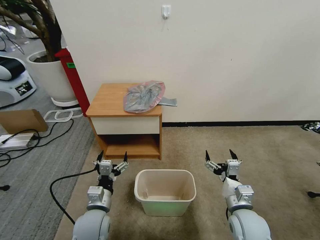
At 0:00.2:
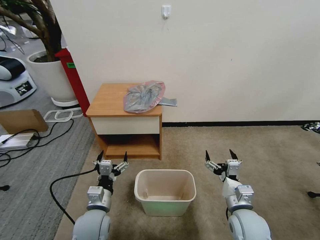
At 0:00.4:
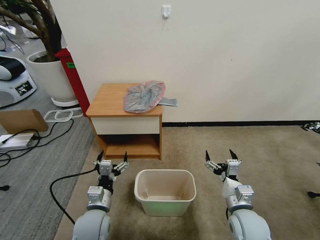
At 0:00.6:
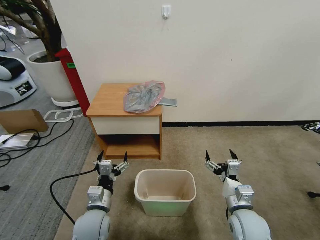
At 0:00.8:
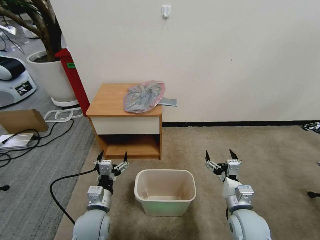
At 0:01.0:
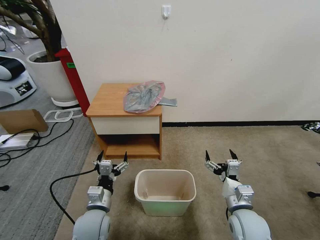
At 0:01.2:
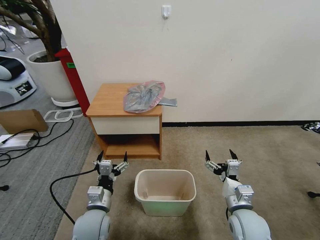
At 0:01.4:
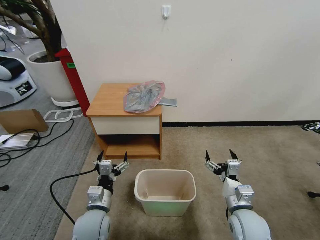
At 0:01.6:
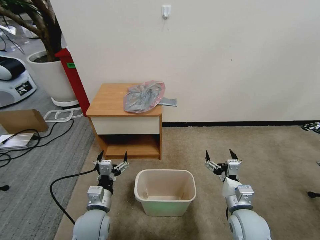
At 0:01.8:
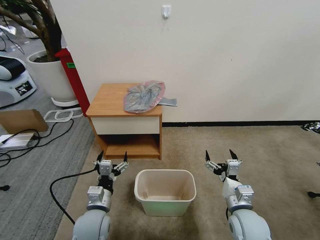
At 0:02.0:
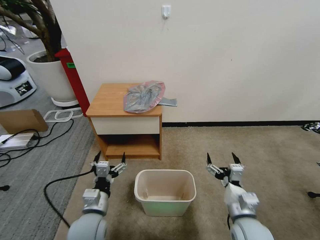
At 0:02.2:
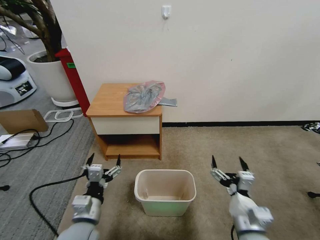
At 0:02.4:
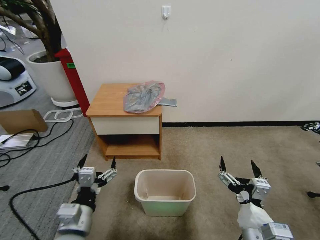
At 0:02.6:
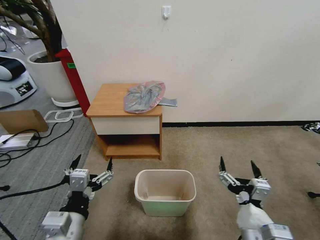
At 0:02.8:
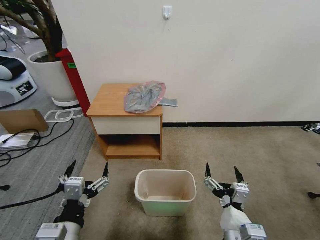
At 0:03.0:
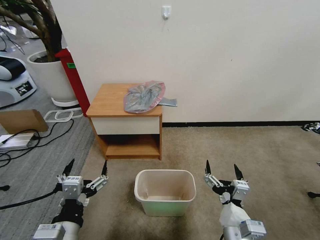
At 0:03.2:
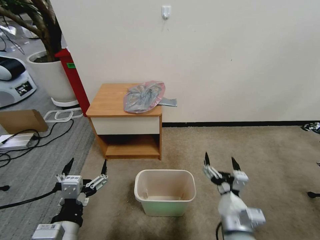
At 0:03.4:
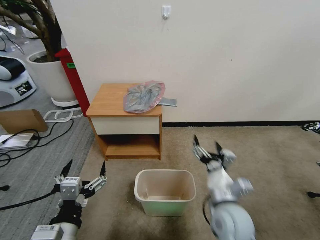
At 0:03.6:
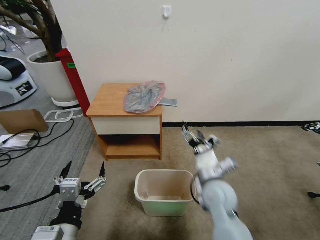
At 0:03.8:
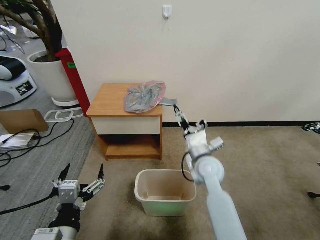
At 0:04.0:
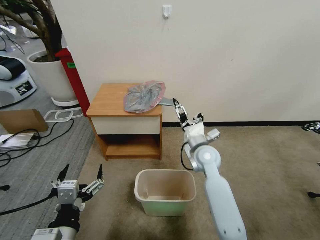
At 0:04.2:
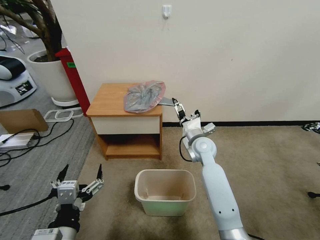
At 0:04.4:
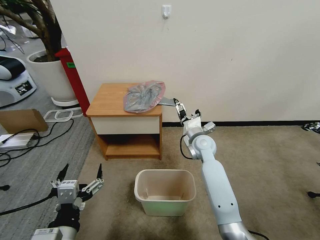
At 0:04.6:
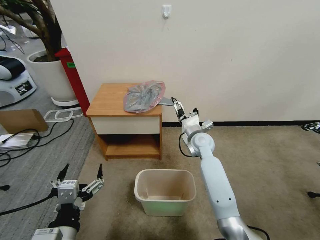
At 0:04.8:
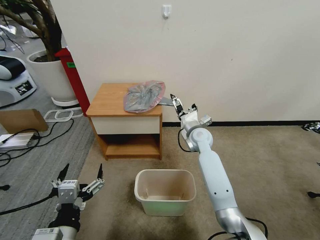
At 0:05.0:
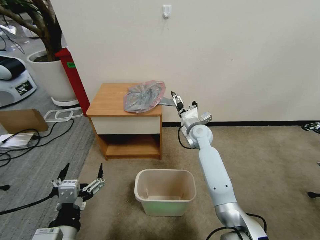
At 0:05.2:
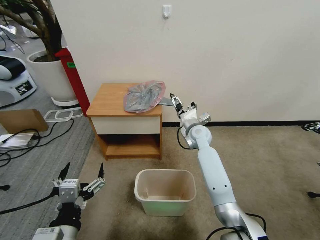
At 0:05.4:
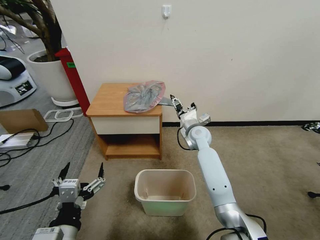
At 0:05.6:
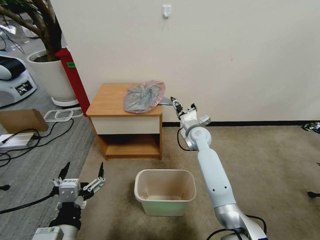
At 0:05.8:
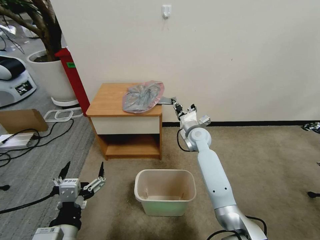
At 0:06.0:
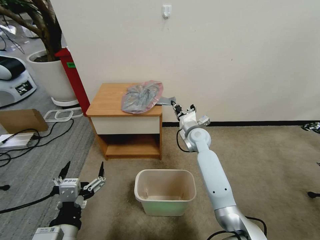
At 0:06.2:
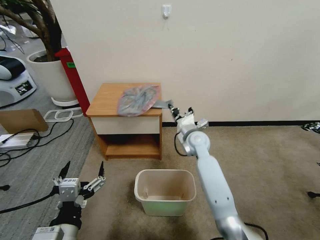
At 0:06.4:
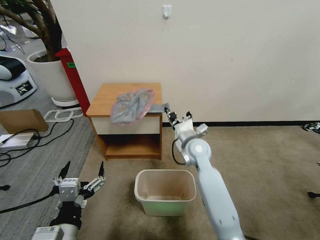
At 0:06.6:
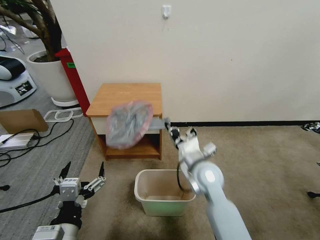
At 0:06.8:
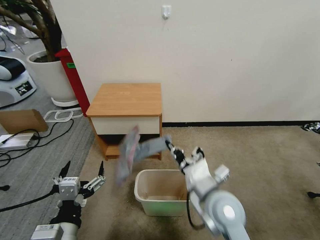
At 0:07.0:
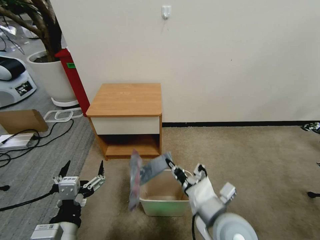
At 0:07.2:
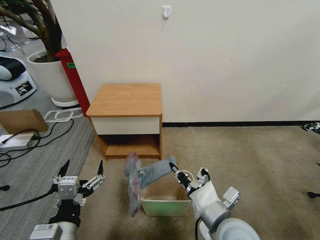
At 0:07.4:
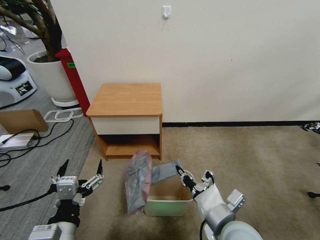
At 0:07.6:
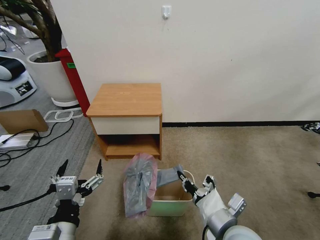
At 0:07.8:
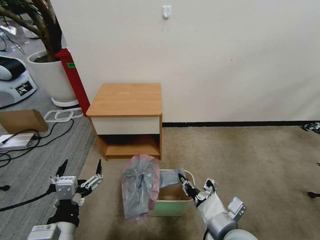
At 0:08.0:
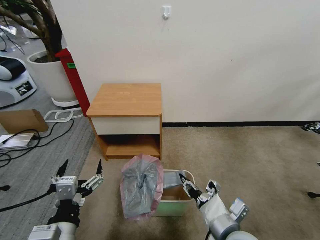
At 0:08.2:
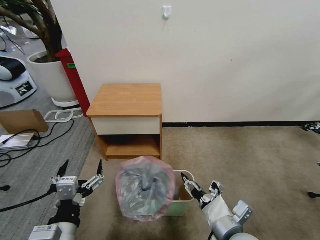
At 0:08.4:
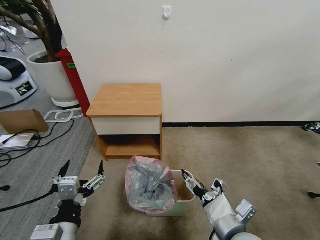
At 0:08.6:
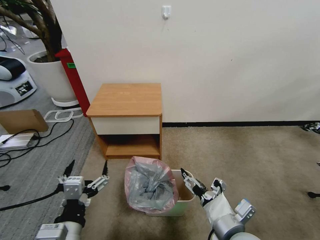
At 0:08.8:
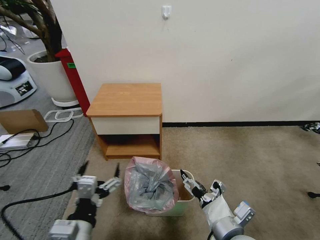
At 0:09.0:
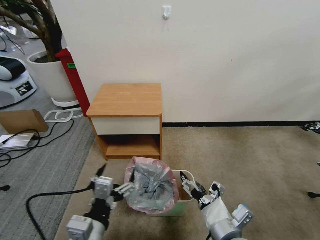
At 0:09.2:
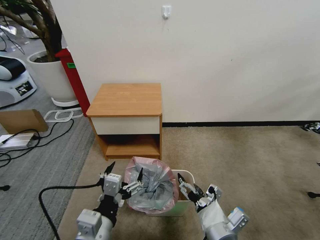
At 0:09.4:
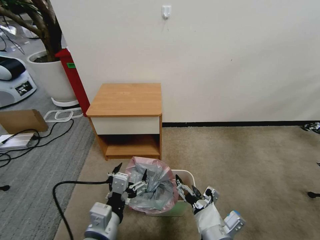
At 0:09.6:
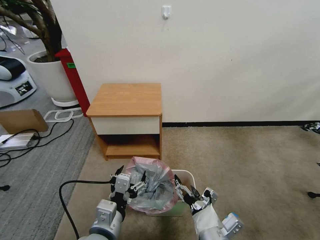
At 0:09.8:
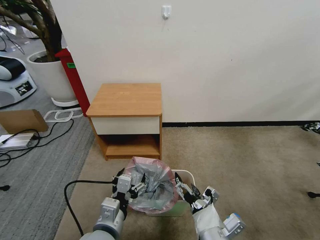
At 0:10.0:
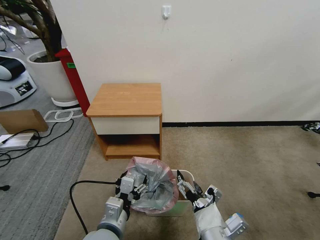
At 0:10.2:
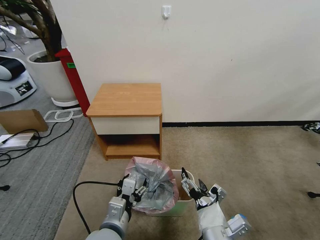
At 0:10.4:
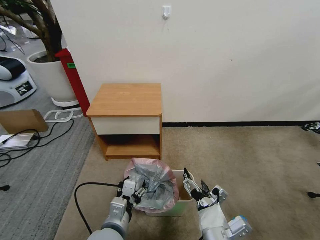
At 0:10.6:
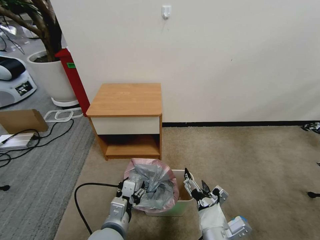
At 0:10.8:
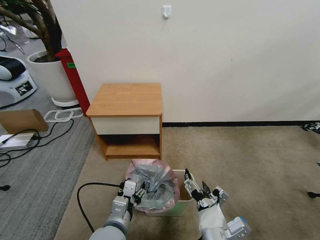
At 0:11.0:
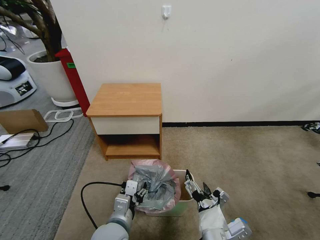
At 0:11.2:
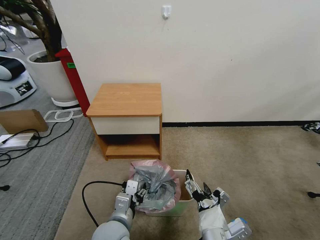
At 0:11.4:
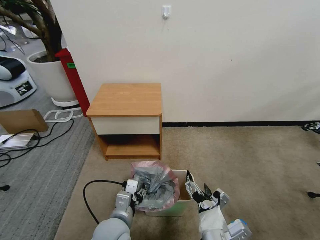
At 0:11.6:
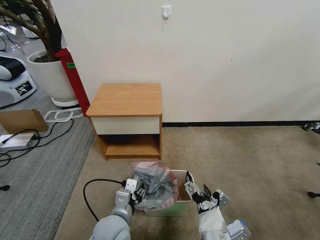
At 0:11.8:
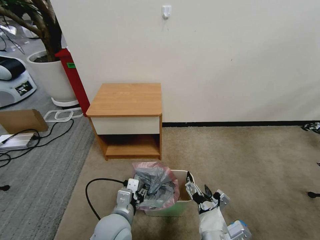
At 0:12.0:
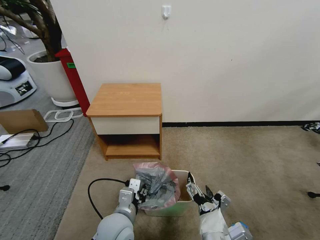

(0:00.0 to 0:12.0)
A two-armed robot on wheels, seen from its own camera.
Task of the whole recording: Pick up the garbage bag from the table and place it over the trash can.
0:01.6 - 0:03.0: The left gripper goes approximately 15 cm upward and backward. Meanwhile the right gripper is displaced backward and to the left by some 10 cm.
0:03.0 - 0:04.4: The right gripper shifts approximately 35 cm forward.
0:04.4 - 0:06.0: The right gripper closes.
0:06.0 - 0:07.6: The right gripper travels backward by roughly 35 cm.
0:07.6 - 0:09.0: The right gripper opens.
0:09.0 - 0:10.4: The left gripper moves downward and forward, roughly 10 cm.
0:10.4 - 0:12.0: There are only small adjustments of the grippers.

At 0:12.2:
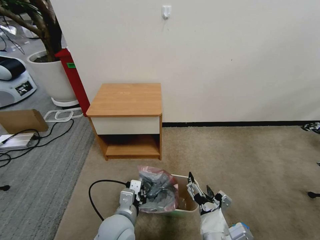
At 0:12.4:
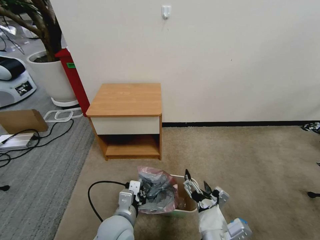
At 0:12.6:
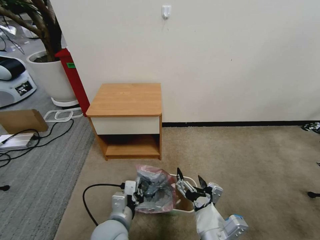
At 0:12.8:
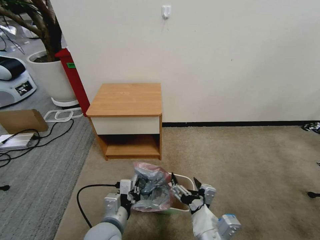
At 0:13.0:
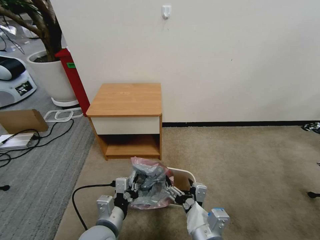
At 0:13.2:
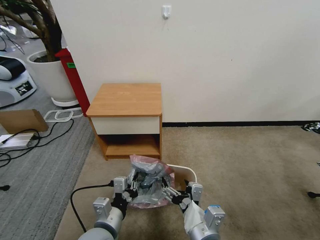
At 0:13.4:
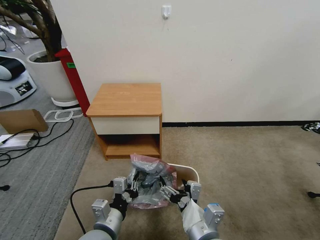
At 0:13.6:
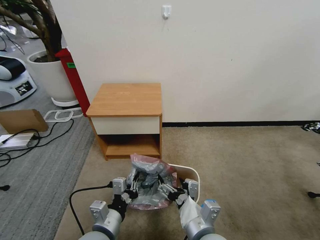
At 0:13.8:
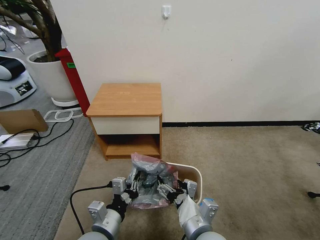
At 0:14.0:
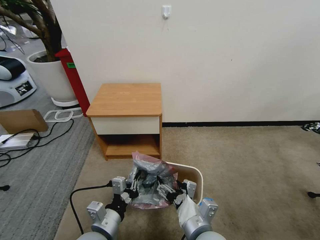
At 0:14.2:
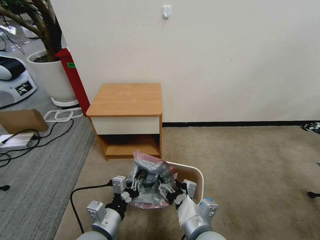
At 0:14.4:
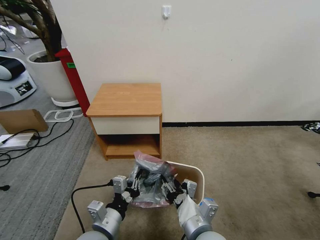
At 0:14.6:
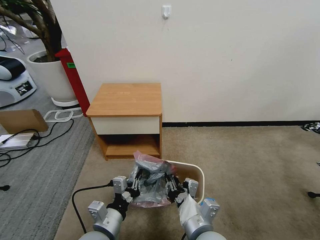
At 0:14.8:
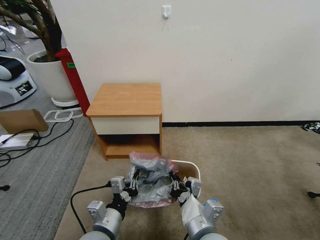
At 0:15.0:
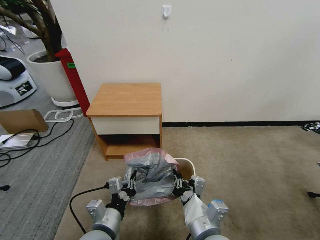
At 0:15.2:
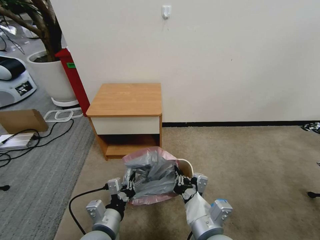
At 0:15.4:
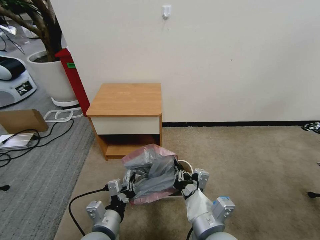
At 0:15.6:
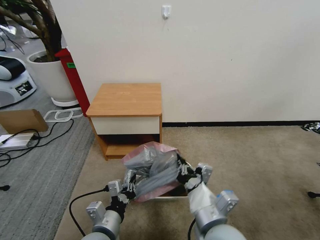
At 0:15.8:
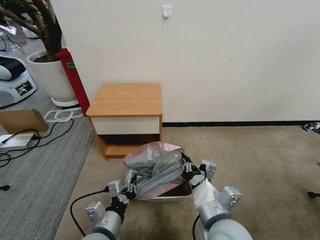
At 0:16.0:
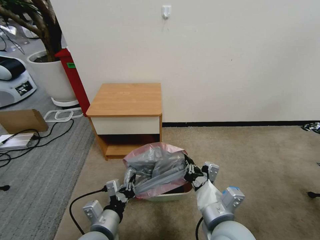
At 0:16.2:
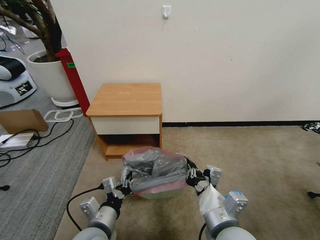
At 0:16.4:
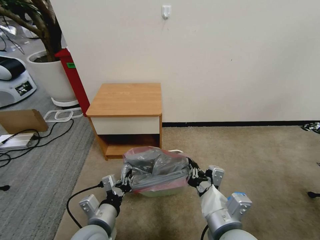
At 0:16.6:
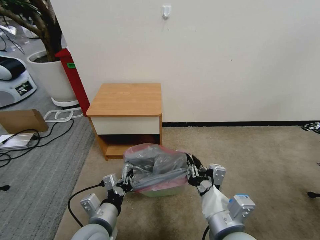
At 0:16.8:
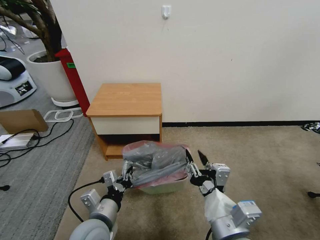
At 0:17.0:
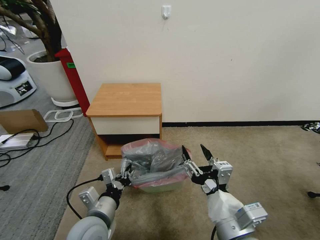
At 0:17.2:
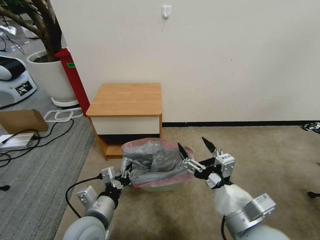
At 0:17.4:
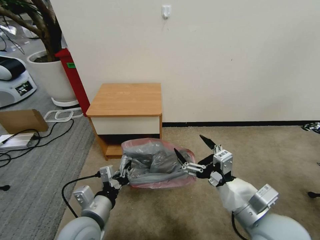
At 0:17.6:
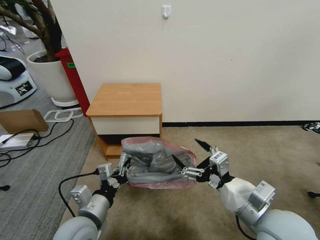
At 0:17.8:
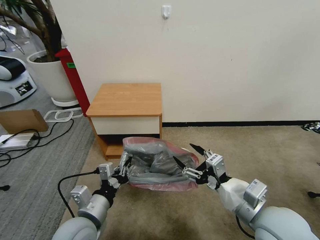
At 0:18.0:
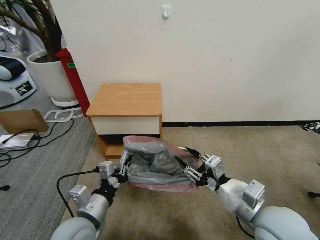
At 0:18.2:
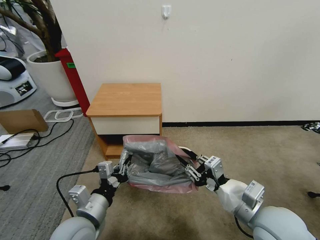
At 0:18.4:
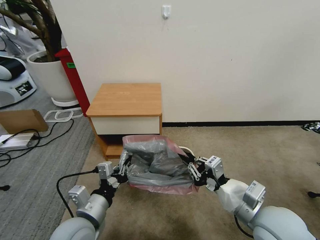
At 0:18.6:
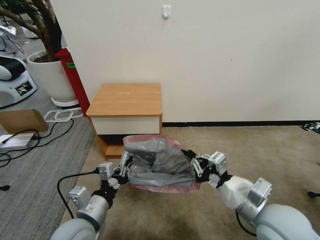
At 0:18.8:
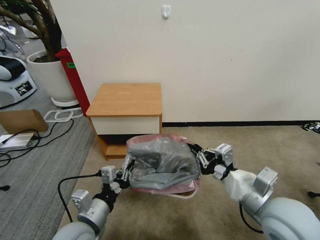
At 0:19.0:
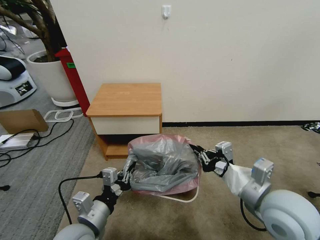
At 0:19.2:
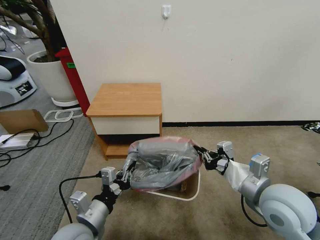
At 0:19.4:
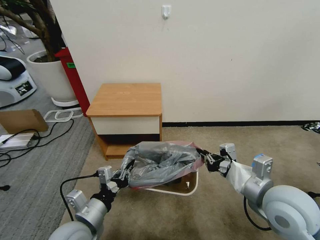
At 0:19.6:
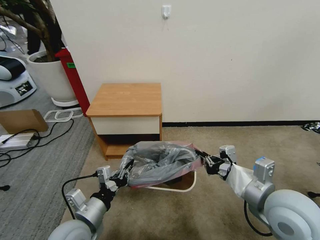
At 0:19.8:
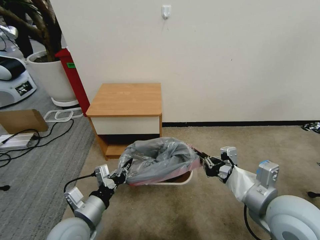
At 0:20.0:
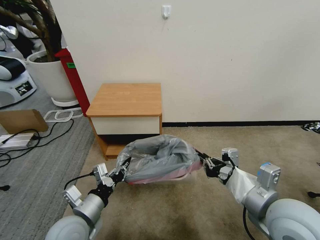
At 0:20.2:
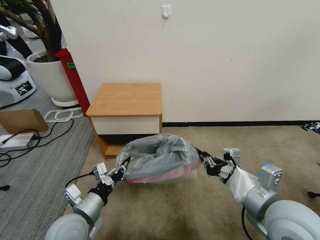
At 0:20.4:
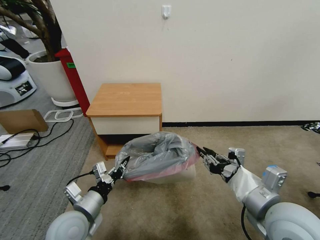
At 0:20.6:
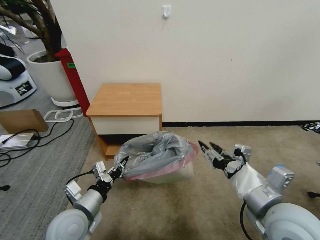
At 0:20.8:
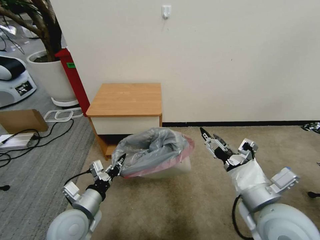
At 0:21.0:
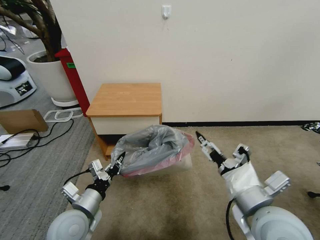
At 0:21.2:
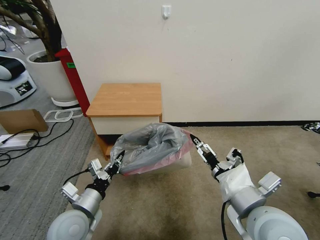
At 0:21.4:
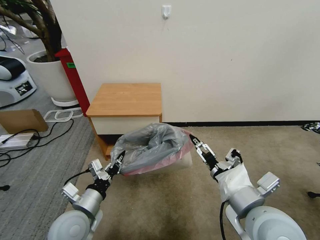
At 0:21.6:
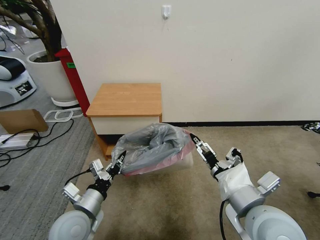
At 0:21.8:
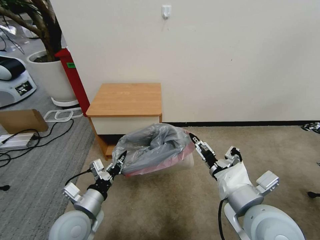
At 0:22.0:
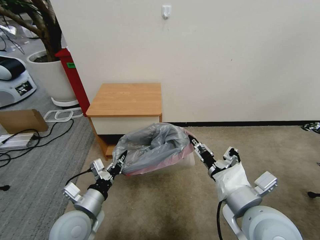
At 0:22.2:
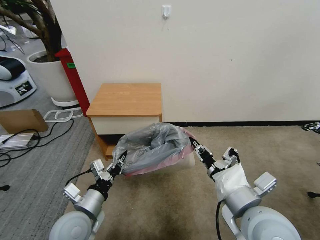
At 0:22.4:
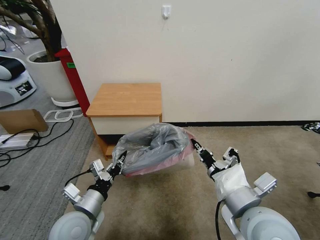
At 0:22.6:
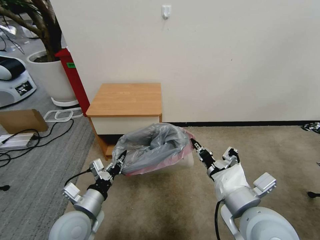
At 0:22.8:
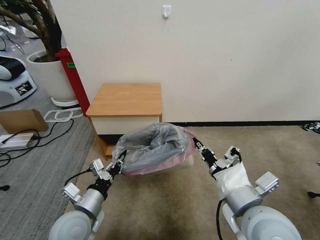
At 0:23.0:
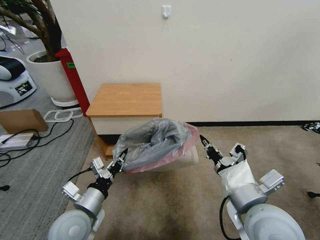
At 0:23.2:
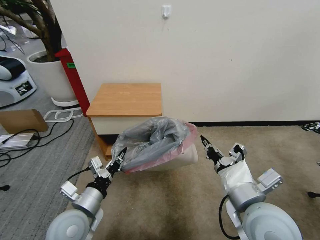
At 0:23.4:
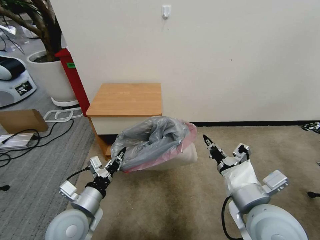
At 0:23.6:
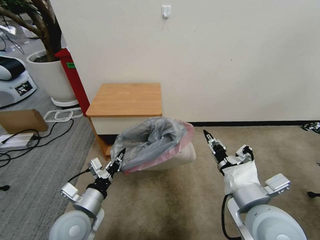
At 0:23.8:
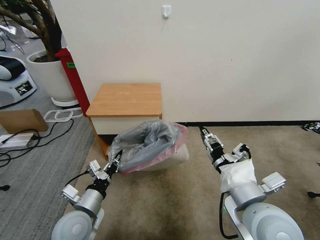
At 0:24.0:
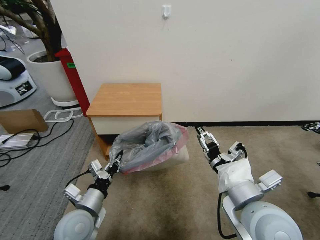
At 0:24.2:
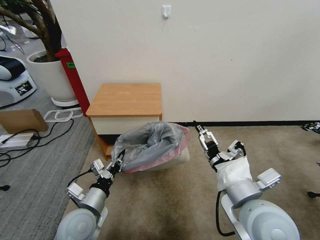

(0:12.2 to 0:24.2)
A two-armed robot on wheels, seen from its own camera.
Task of the whole recording: Pick up the garbage bag from the table and place it over the trash can.
0:12.2 - 0:13.8: The left gripper is displaced to the left by roughly 5 cm.
0:13.8 - 0:15.2: The right gripper closes.
0:15.2 - 0:16.6: The right gripper moves some 5 cm.
0:16.6 - 0:18.2: The right gripper moves to the right and forward, roughly 10 cm, and opens, then closes again.
0:19.8 - 0:21.2: The right gripper shifts by about 5 cm, and opens its fingers.
0:21.2 - 0:22.6: The right gripper closes its fingers.
0:22.6 - 0:24.2: The right gripper opens up.
